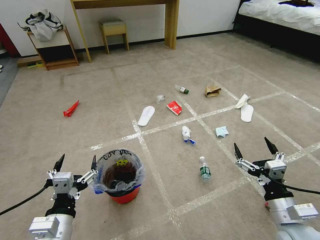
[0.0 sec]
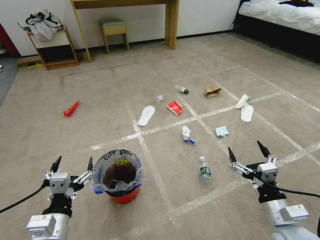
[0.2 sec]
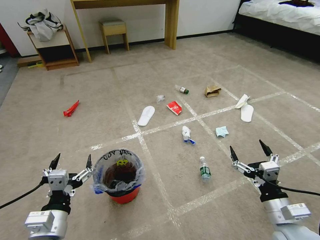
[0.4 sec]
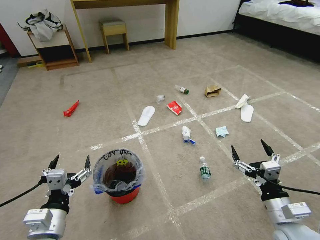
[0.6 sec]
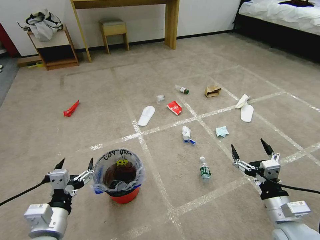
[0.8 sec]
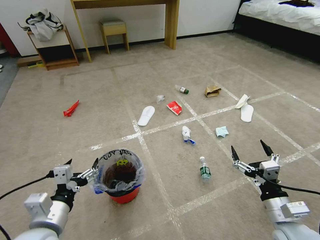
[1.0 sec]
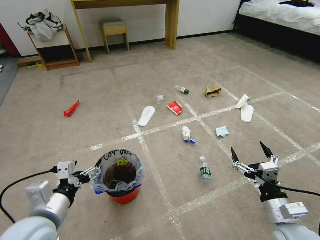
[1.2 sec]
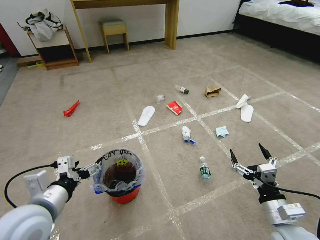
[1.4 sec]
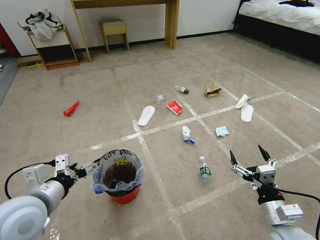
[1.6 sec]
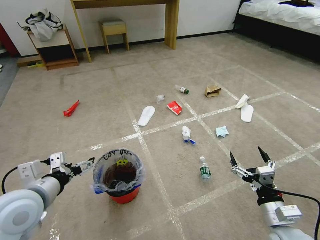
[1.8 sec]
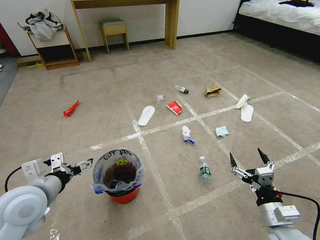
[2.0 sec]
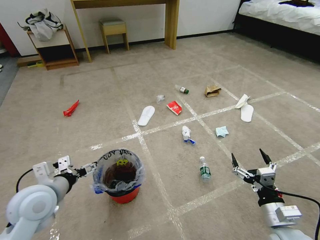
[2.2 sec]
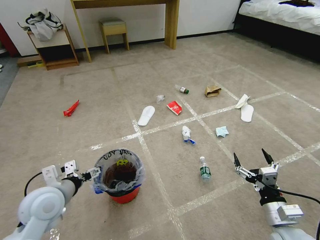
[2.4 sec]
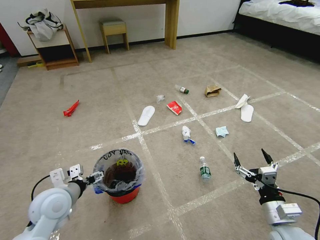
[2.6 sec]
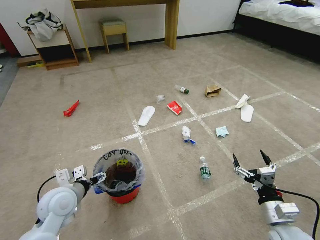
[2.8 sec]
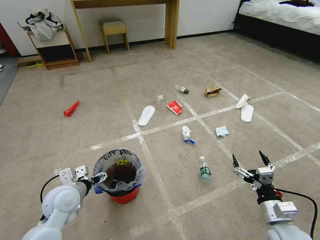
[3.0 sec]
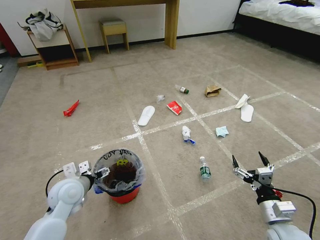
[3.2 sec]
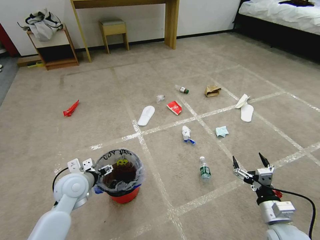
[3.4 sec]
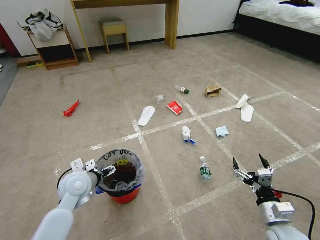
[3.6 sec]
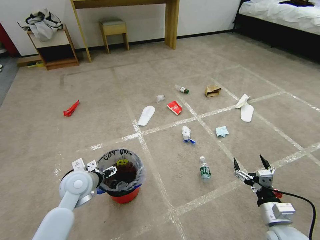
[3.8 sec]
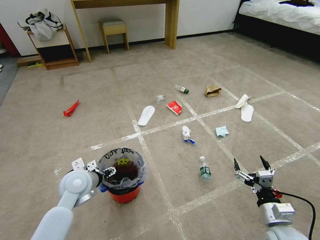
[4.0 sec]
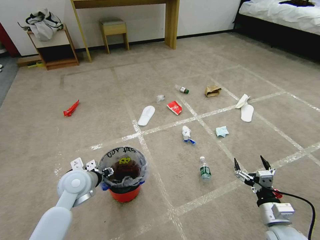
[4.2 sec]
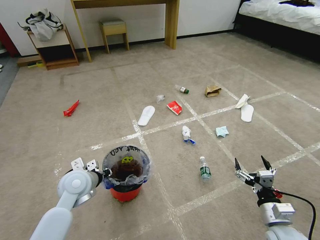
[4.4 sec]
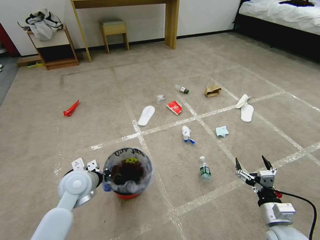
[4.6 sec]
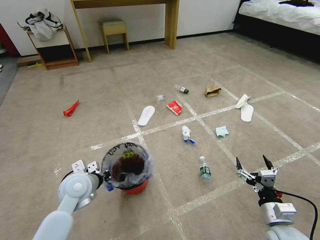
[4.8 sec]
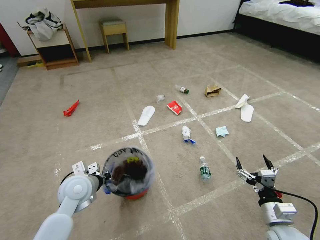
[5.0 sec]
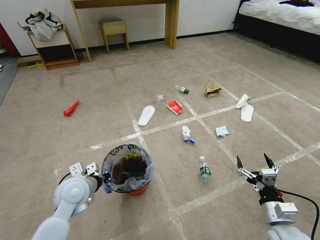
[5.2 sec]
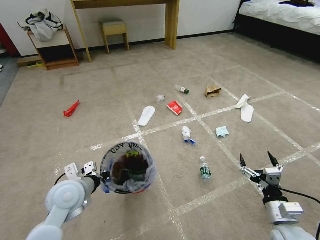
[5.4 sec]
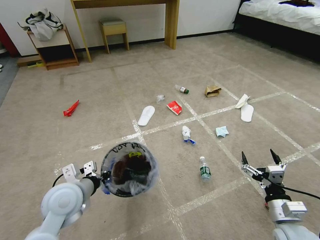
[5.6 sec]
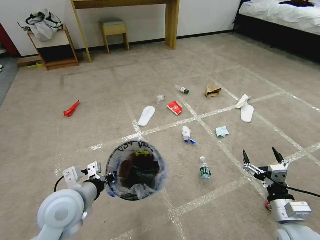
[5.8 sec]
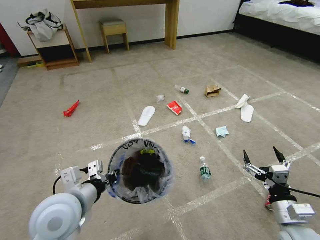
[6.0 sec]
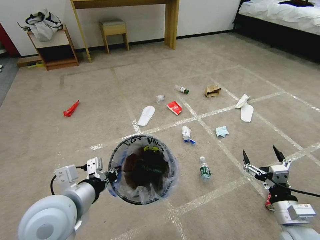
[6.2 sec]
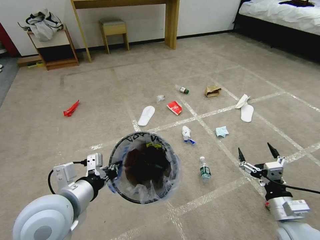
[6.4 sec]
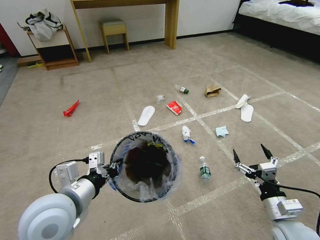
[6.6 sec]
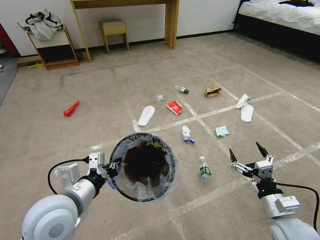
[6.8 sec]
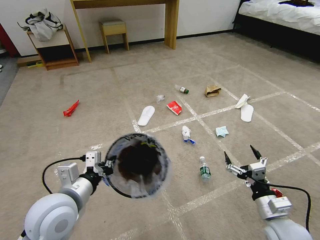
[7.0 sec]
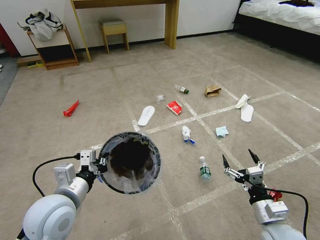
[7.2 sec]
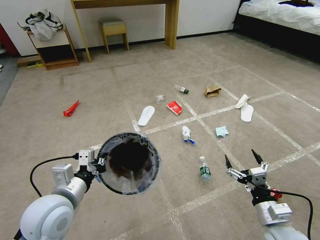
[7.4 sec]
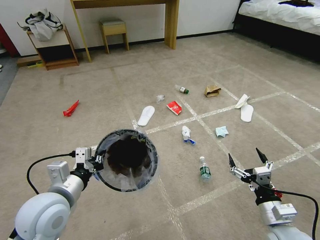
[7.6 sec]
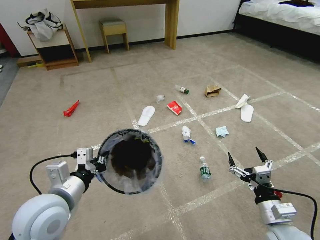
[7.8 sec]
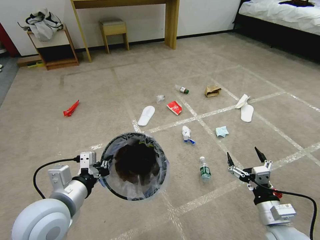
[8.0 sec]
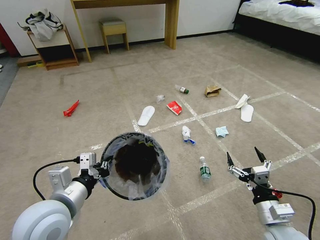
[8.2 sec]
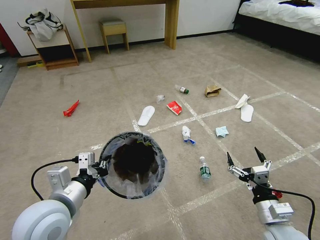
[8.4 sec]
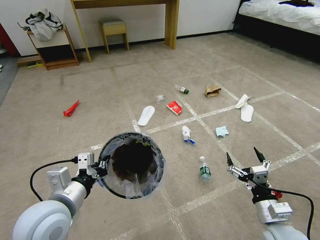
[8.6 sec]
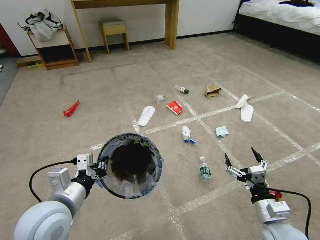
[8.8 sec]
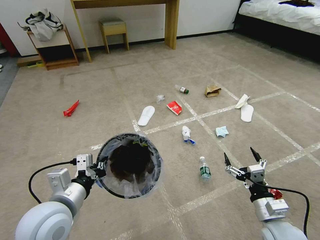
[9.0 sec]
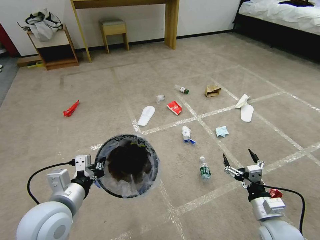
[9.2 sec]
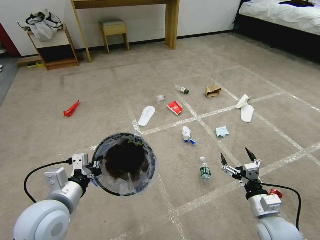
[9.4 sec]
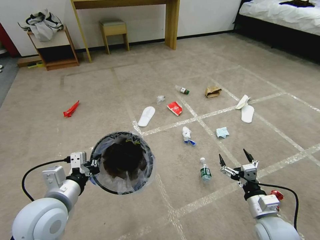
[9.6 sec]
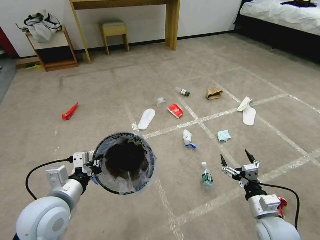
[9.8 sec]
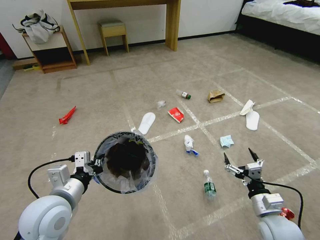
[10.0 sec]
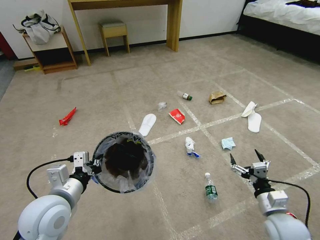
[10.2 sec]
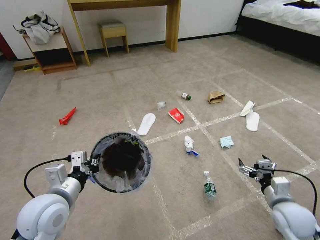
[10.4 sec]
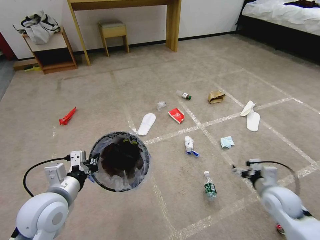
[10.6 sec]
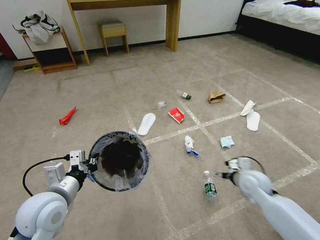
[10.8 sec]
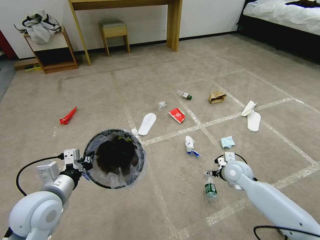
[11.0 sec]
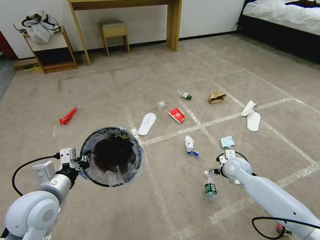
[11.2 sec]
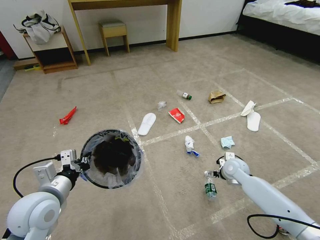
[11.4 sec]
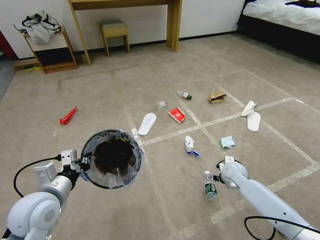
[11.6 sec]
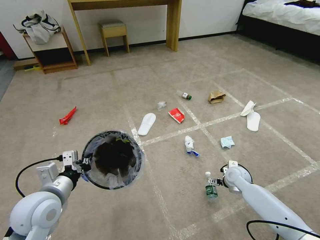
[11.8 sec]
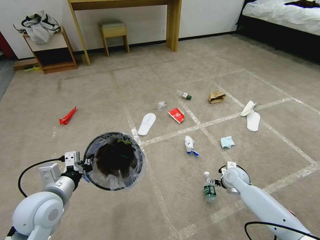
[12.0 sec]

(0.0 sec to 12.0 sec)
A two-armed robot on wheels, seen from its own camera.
Task of the whole recording: Pick up the trash bin and place the garbage on the floor into it.
1.6 sec - 3.0 sec: The left gripper goes roughly 15 cm downward and forward.
3.0 sec - 4.4 sec: The left gripper shifts by approximately 5 cm, and closes up.
4.4 sec - 6.0 sec: The left gripper is displaced backward and upward by approximately 15 cm.
7.6 sec - 9.0 sec: There are only small adjustments of the grippers.
9.0 sec - 10.4 sec: The right gripper shifts about 10 cm to the right and forward.
10.4 sec - 12.0 sec: The right gripper moves forward, downward and to the left, approximately 20 cm.

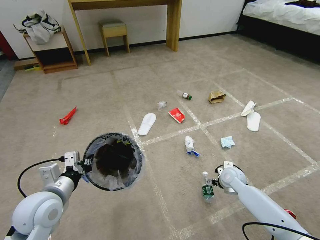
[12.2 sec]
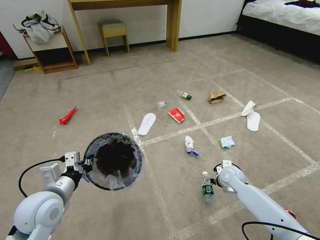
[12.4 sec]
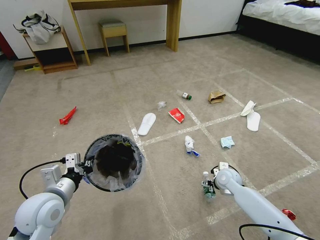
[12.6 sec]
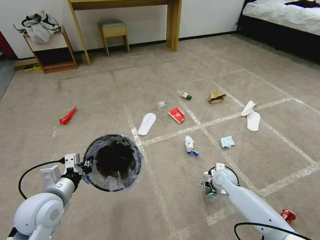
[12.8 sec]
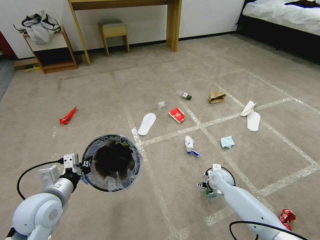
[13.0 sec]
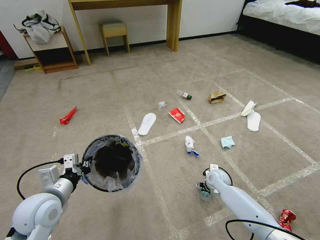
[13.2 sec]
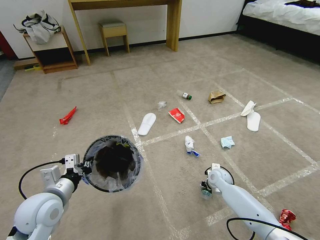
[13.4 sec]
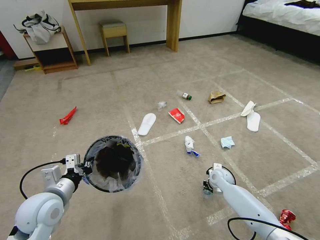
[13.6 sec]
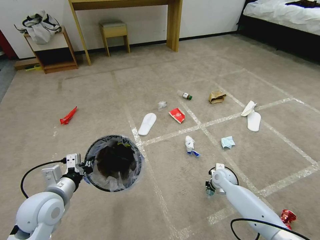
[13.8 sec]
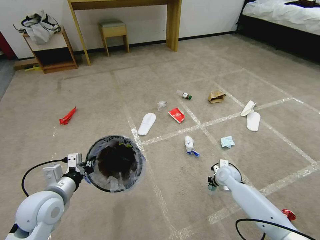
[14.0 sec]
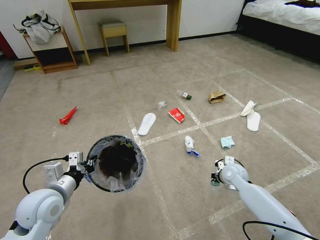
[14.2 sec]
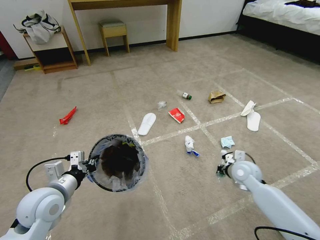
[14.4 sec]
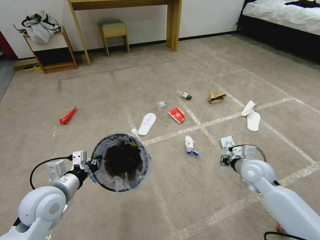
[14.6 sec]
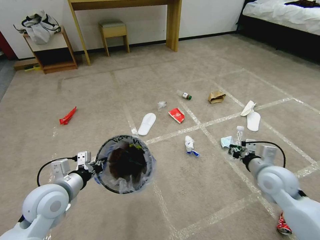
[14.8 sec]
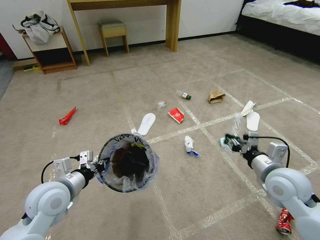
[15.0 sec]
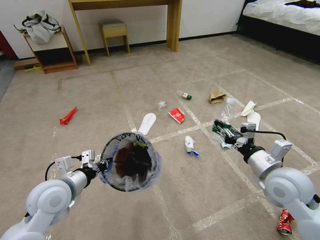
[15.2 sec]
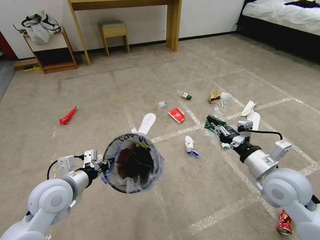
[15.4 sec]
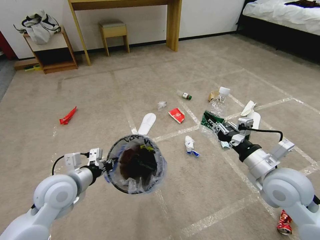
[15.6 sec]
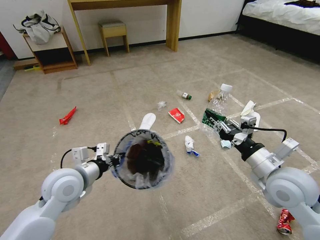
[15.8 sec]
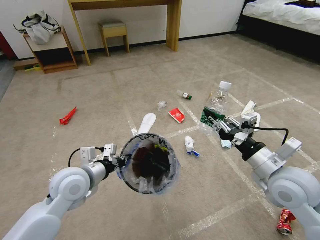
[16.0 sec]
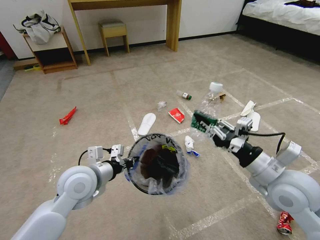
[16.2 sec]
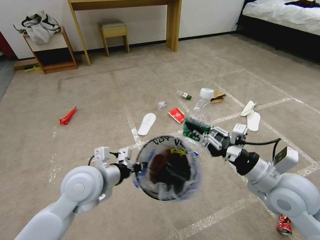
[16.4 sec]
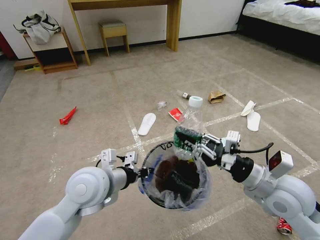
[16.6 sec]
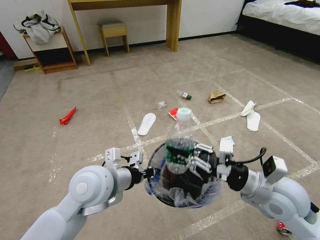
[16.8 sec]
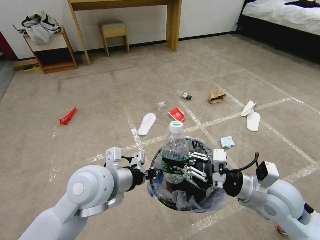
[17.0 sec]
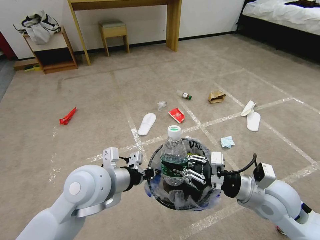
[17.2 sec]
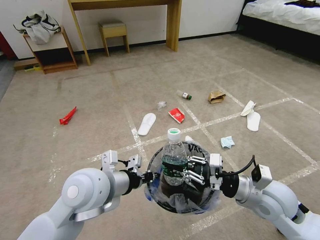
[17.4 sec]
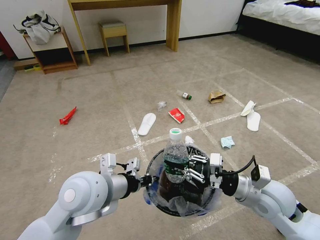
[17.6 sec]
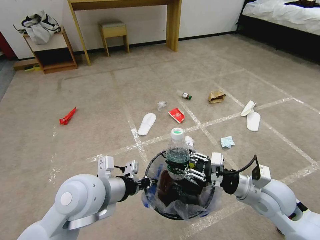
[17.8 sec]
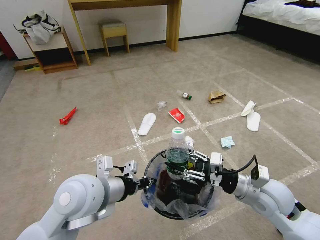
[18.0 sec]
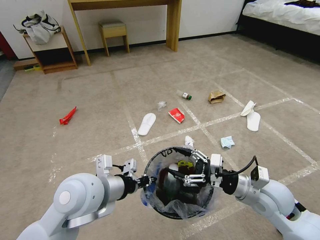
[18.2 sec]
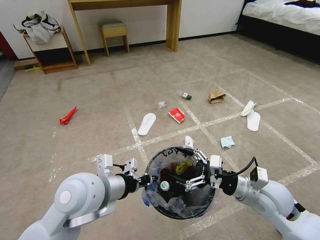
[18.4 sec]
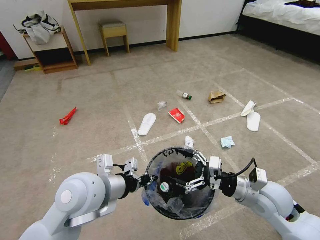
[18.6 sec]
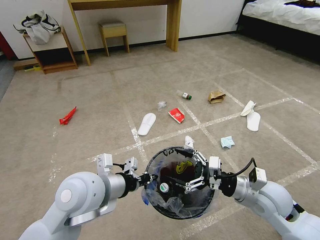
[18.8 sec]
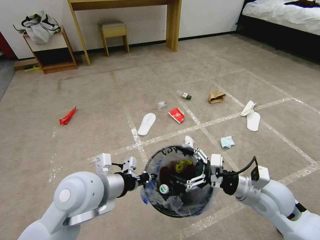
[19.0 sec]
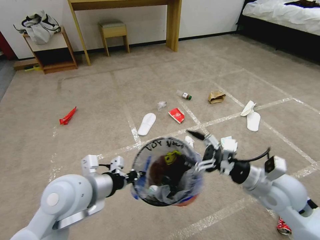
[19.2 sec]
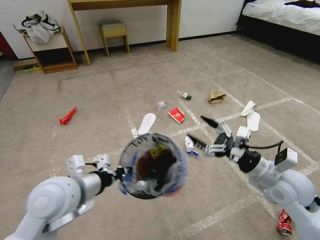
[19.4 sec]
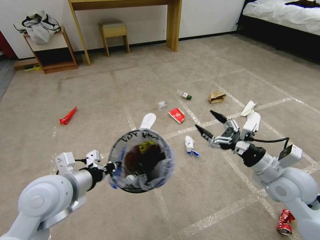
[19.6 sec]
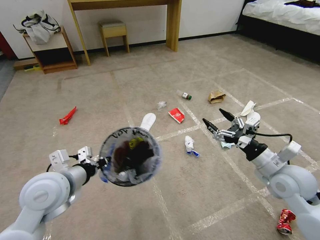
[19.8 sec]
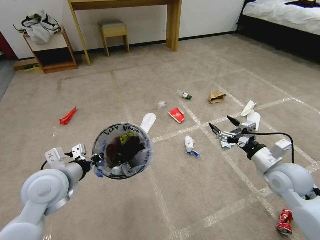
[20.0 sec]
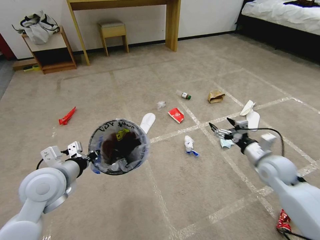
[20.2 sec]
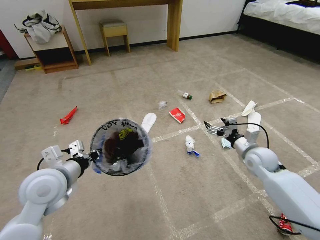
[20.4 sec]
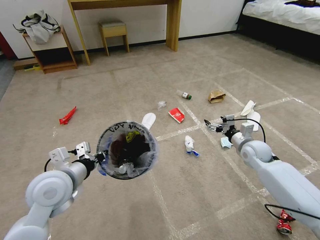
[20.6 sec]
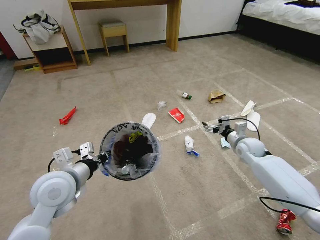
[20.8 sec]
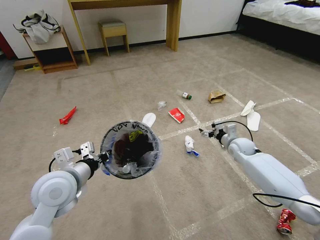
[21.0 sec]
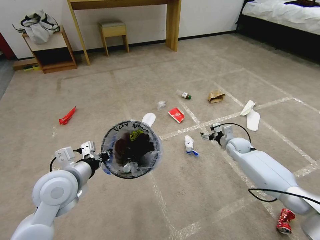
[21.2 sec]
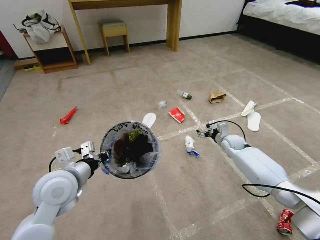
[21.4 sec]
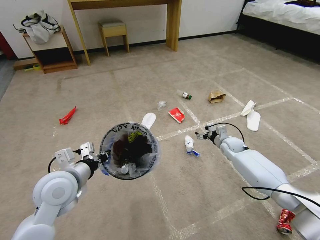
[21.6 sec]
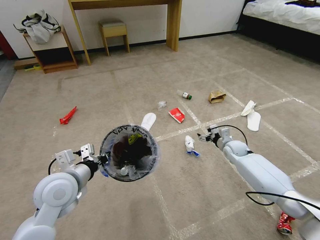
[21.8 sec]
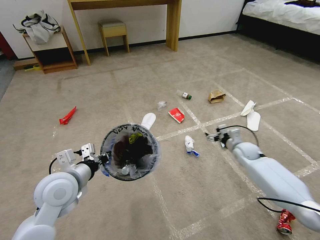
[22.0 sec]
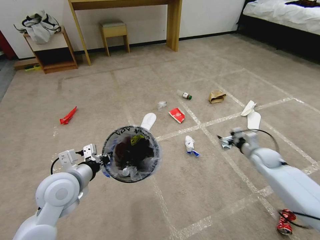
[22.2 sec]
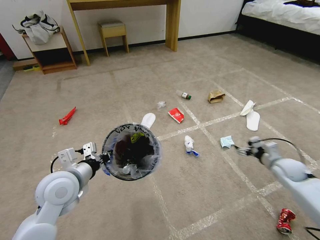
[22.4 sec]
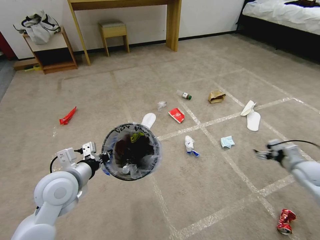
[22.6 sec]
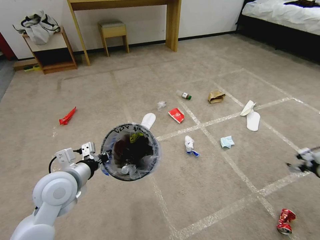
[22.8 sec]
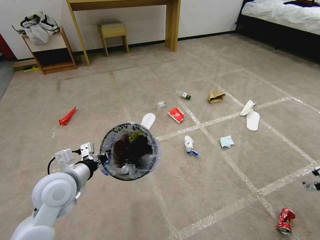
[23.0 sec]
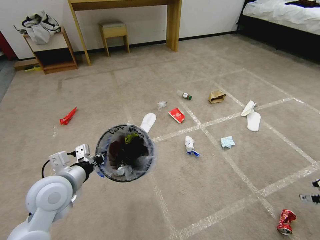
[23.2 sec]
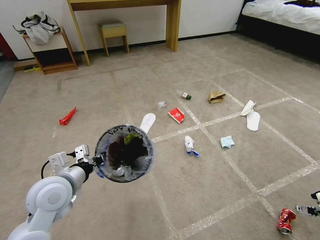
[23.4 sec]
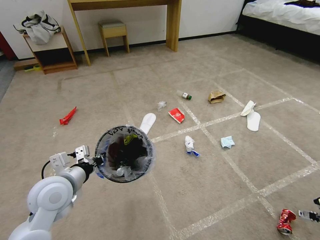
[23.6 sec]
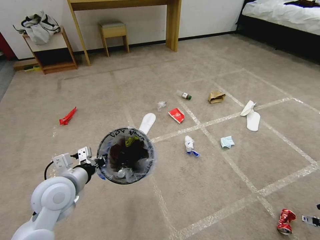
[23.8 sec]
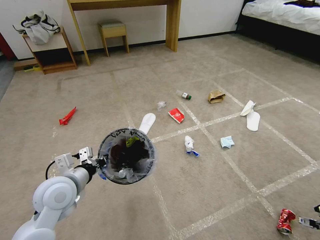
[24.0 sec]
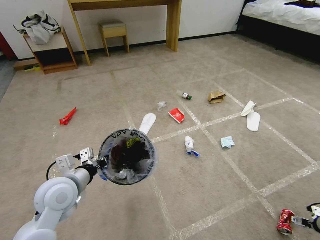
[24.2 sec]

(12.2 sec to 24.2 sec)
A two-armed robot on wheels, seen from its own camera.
Task of the whole recording: Pick up the trash bin and place the garbage on the floor into it.
12.2 sec - 13.8 sec: The right gripper closes.
13.8 sec - 15.2 sec: The right gripper travels upward and backward by some 30 cm.
15.2 sec - 16.6 sec: The right gripper changes place by roughly 5 cm. Meanwhile the left gripper is displaced to the right and upward by approximately 15 cm.
16.6 sec - 18.2 sec: The right gripper heads downward, covering roughly 5 cm, and opens up.
18.2 sec - 19.8 sec: The right gripper heads to the right, covering approximately 5 cm. The left gripper goes about 10 cm to the left.
19.8 sec - 21.2 sec: The right gripper moves forward and downward, some 30 cm.
21.2 sec - 22.6 sec: The right gripper is displaced to the right and backward by some 25 cm.
22.6 sec - 24.2 sec: The right gripper travels backward, downward and to the right by roughly 20 cm.
